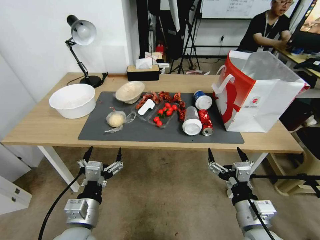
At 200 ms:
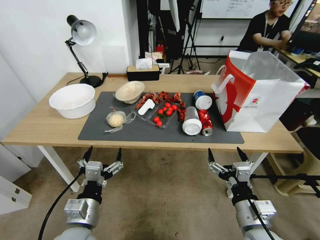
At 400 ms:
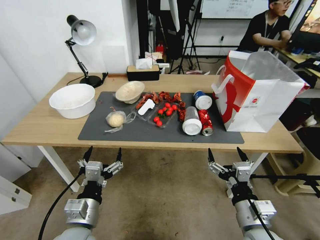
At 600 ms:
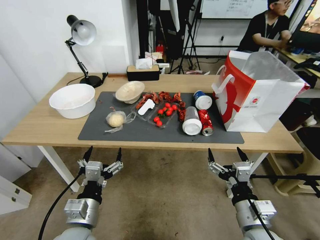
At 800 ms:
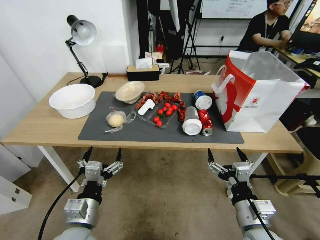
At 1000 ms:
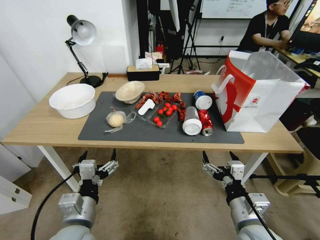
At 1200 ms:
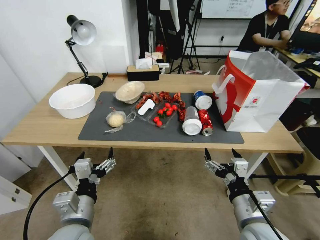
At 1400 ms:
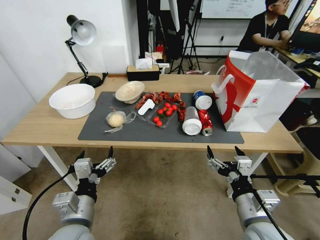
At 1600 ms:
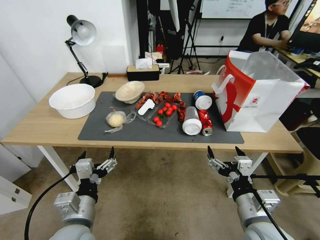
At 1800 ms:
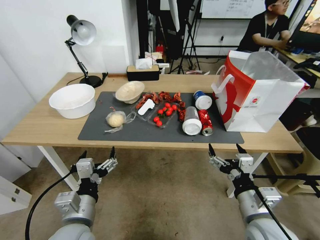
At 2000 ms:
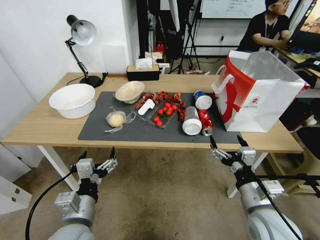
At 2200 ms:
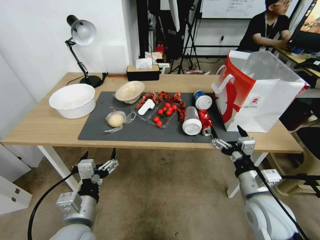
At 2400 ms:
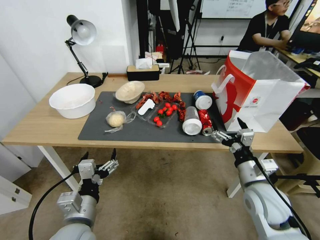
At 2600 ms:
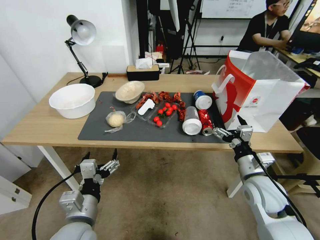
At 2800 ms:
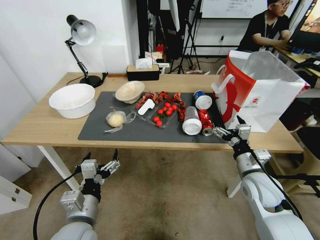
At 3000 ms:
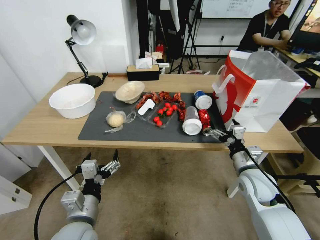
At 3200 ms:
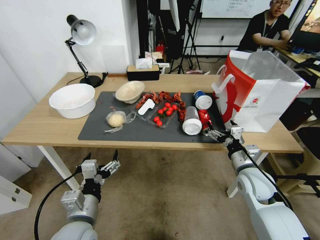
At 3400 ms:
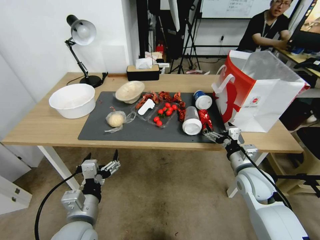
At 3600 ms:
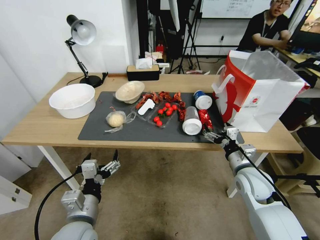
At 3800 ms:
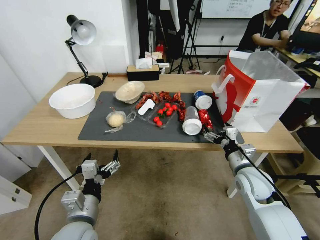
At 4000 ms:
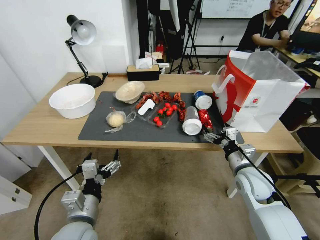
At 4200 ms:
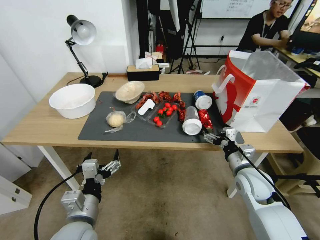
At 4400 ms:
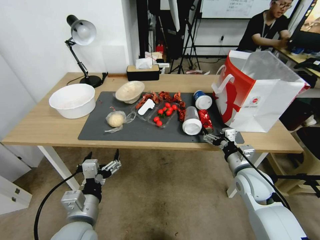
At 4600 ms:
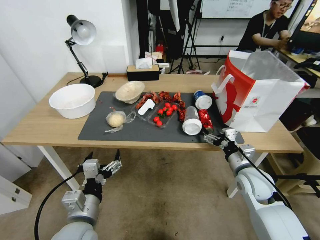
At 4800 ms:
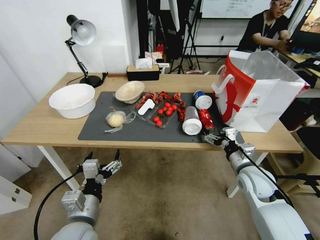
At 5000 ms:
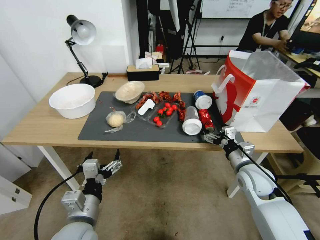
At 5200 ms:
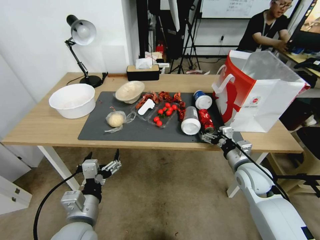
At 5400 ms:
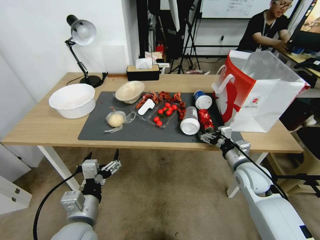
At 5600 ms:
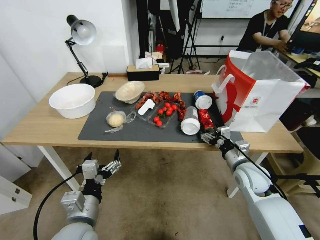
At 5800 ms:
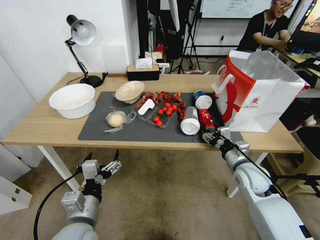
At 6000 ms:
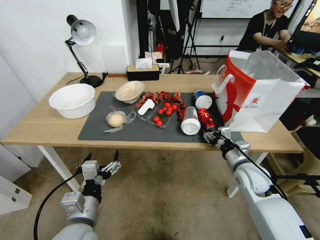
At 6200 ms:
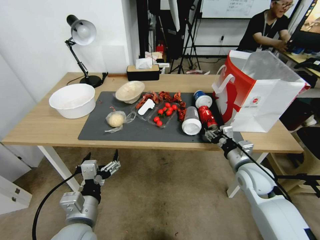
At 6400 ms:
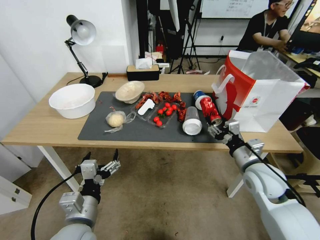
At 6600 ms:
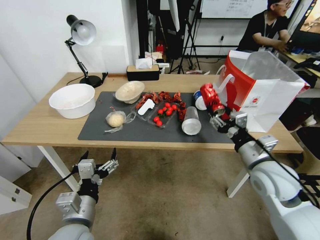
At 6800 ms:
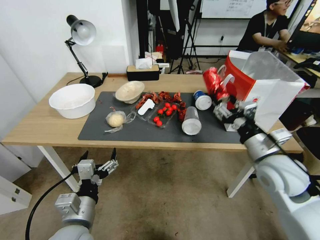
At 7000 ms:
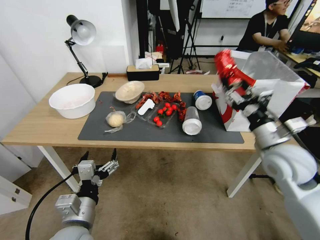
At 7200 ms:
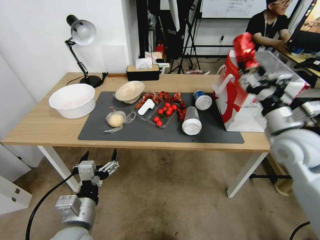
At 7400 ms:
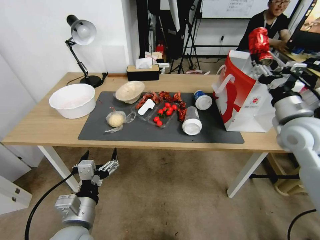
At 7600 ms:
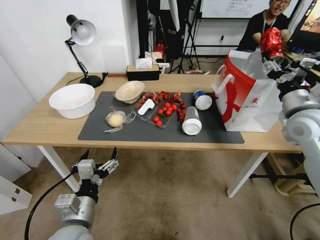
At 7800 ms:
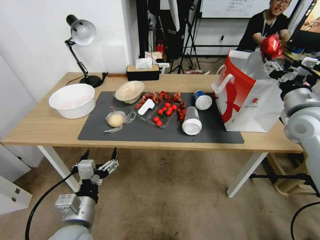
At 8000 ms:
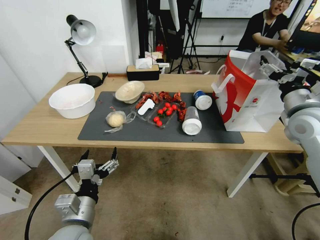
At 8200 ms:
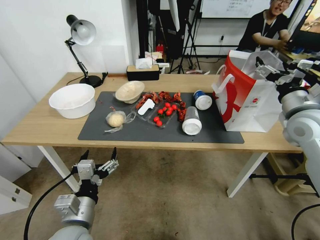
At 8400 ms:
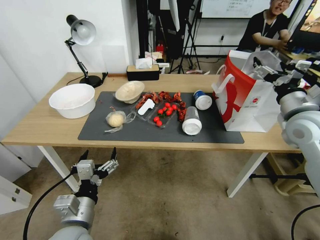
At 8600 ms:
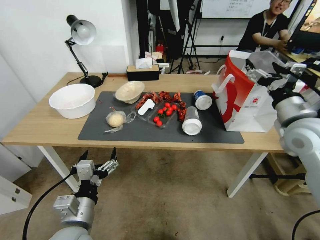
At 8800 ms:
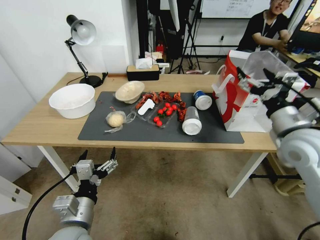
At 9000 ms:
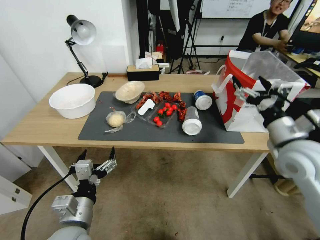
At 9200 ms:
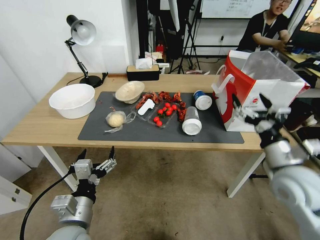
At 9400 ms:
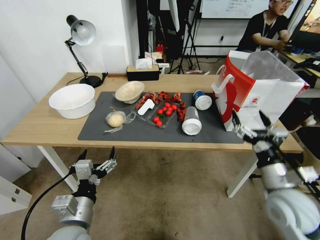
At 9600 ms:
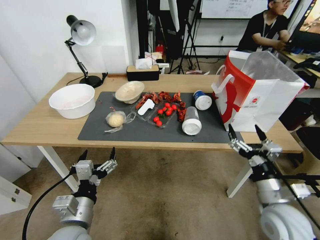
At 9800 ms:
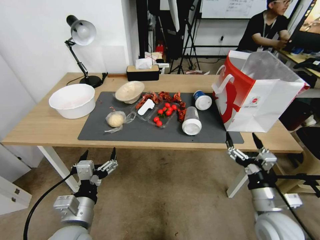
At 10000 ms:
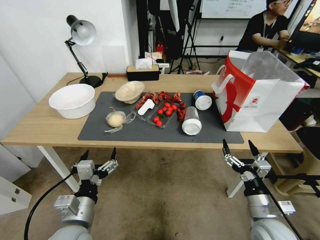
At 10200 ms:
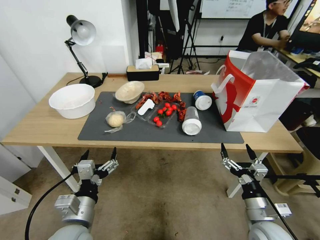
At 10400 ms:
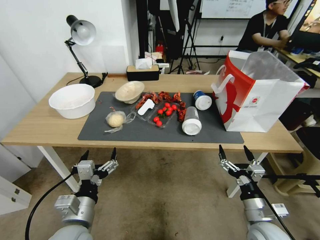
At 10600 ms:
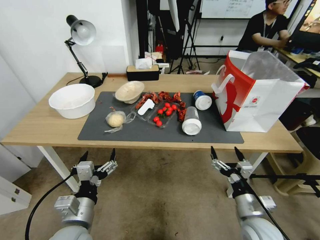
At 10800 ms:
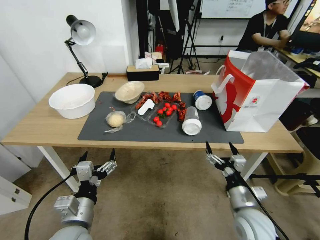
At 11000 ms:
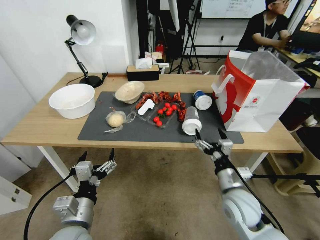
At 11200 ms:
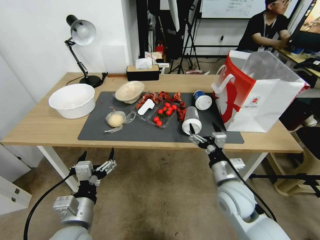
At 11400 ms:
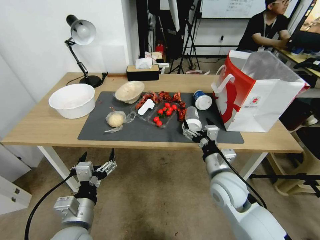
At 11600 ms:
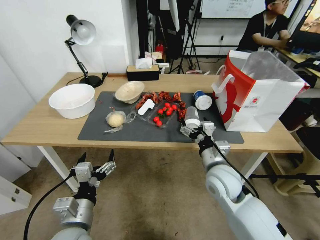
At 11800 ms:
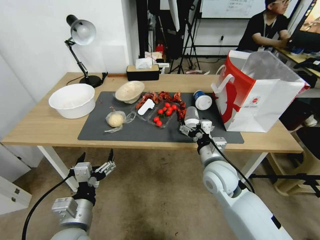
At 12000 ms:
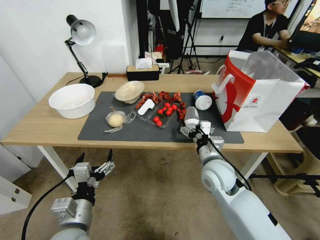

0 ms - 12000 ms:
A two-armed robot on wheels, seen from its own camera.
1600 ms - 3000 ms: The right gripper goes some 15 cm forward and to the right.
3000 ms - 4400 ms: The grippers make only small movements.
4400 ms - 6000 ms: The right gripper closes.
6000 ms - 7600 ms: The right gripper heads upward and to the right, covering roughly 20 cm.
7600 ms - 9000 ms: The right gripper shifts about 10 cm backward, and opens its fingers.
9000 ms - 10400 ms: The right gripper moves downward and backward, some 20 cm.
10400 ms - 12000 ms: The right gripper moves forward, to the left and upward, roughly 20 cm.

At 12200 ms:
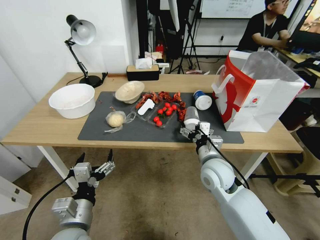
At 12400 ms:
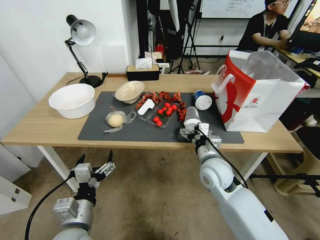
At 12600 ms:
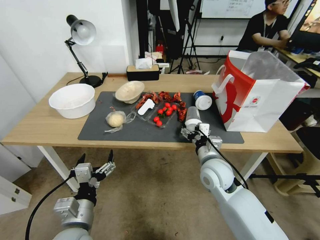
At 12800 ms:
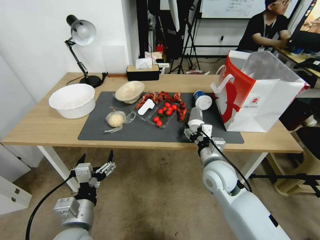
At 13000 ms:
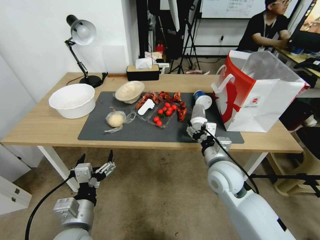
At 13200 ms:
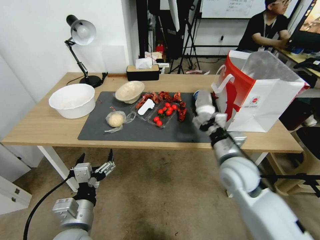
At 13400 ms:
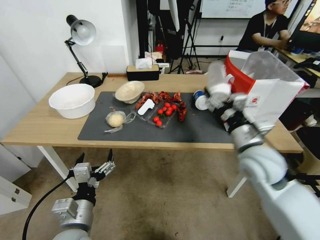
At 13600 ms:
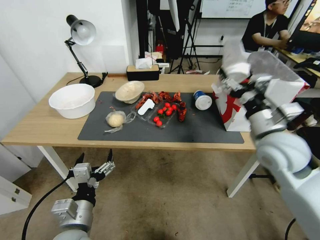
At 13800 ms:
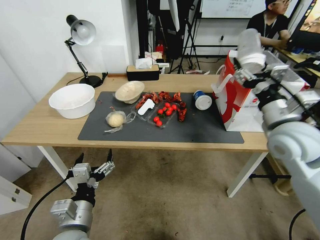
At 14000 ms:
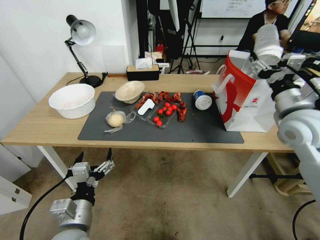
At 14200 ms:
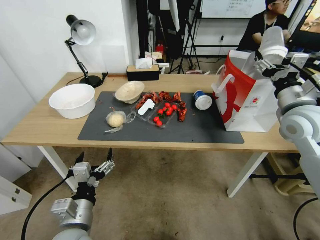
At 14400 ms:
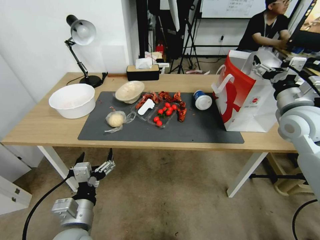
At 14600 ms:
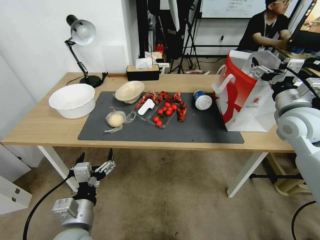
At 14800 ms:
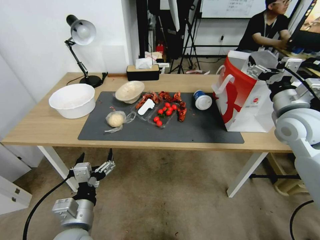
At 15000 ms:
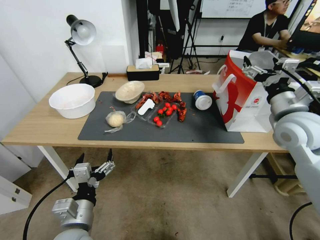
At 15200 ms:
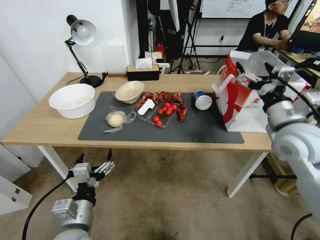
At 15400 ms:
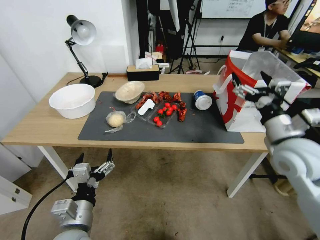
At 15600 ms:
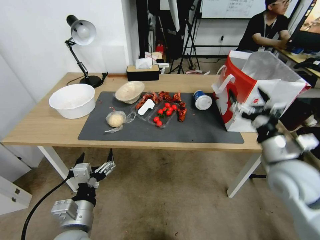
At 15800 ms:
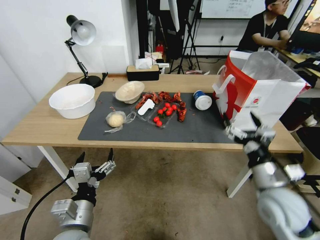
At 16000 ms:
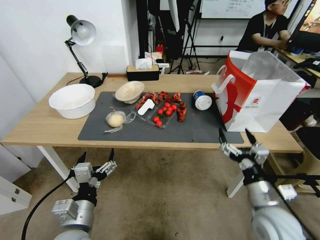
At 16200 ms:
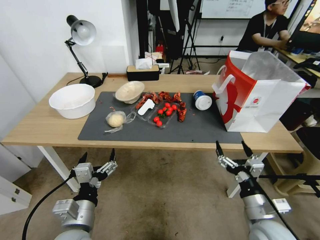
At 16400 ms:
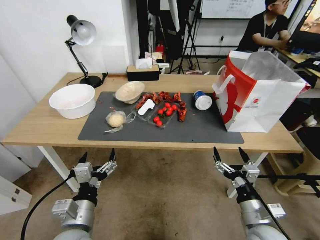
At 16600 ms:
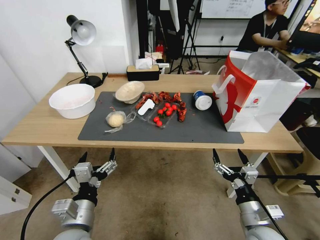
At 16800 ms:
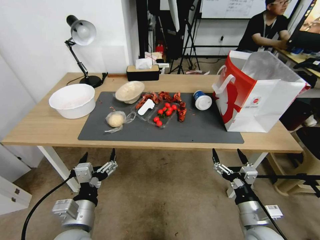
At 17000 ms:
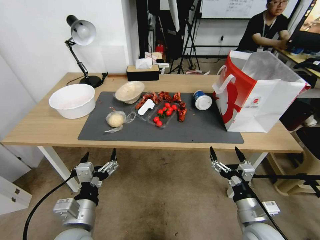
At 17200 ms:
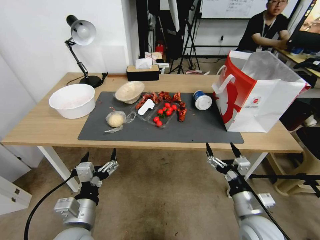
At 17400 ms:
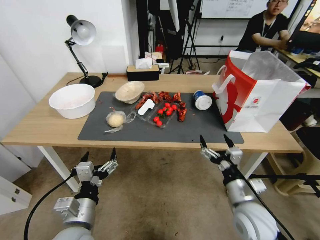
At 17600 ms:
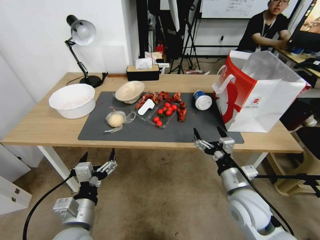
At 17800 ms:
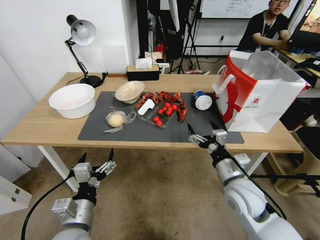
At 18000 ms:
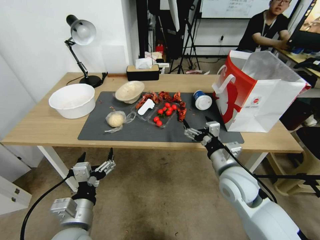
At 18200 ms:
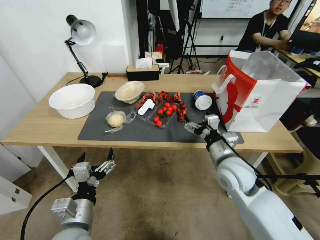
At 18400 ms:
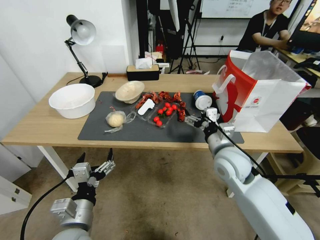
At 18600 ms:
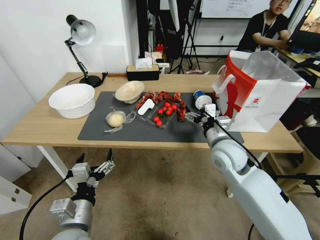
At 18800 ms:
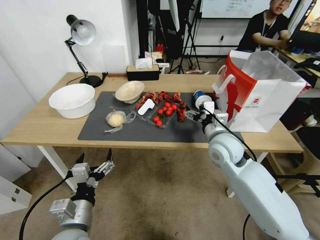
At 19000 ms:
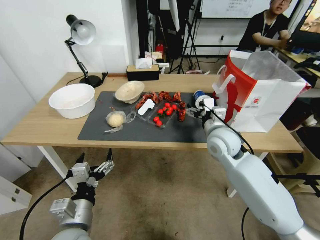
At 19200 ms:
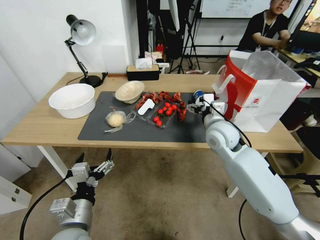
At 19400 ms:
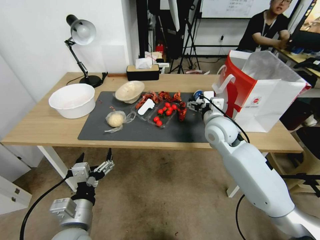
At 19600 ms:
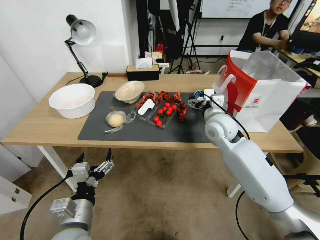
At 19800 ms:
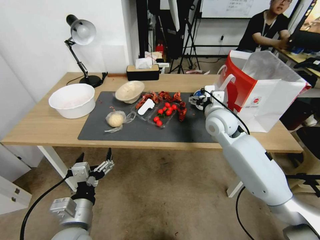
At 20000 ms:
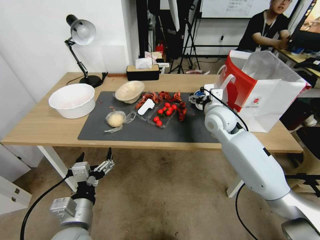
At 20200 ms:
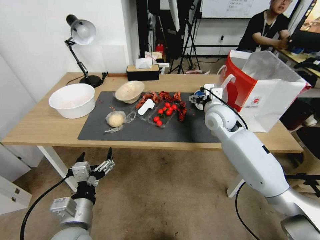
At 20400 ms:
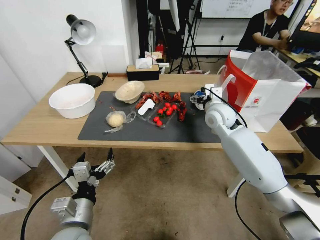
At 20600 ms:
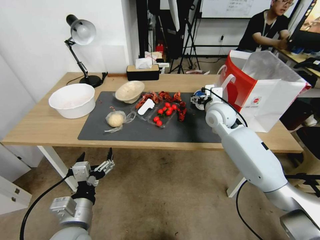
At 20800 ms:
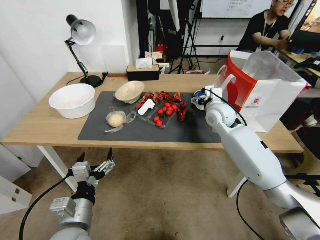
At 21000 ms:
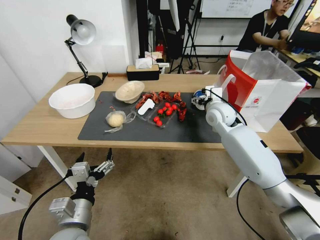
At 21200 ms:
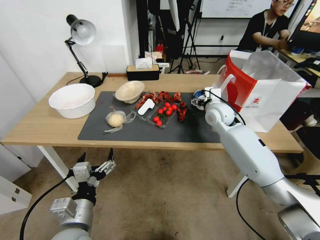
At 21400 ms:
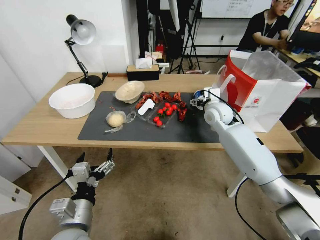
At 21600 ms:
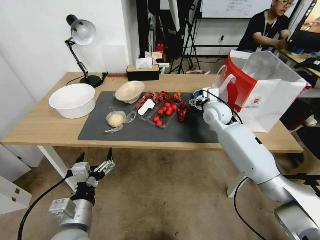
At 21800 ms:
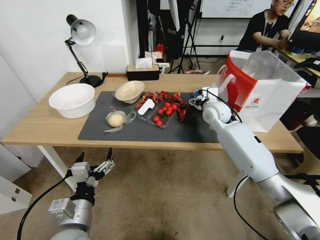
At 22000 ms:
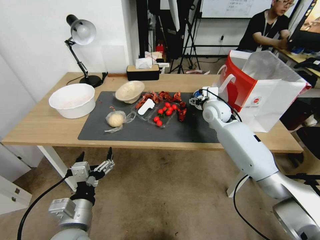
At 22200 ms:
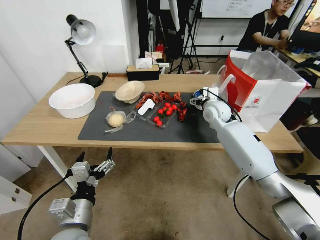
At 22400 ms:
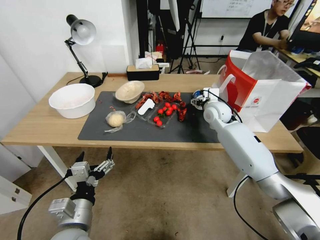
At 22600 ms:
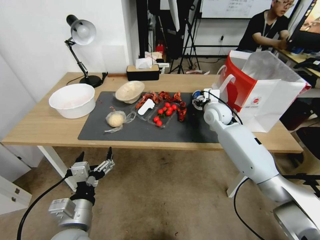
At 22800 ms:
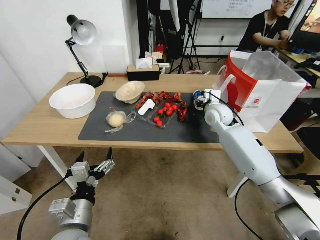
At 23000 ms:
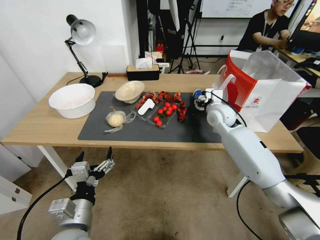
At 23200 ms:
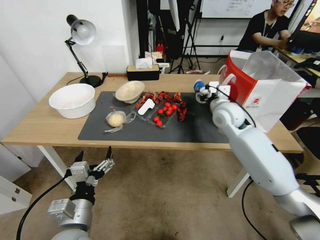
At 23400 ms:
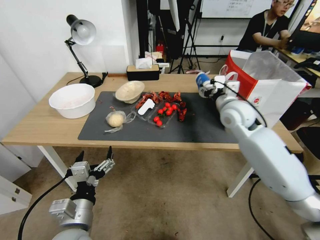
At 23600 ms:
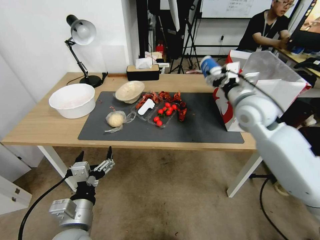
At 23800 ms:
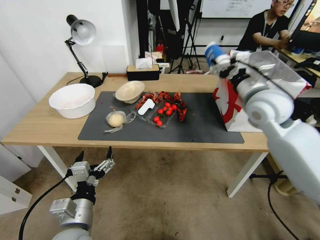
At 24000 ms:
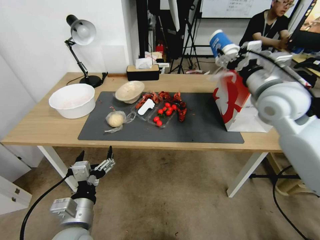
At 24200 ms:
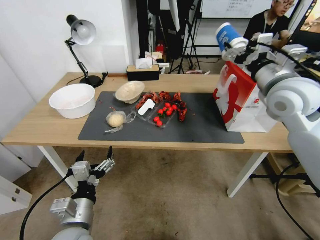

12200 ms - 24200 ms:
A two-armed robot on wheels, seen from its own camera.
12200 ms - 13800 ms: The right gripper is displaced upward and to the right by approximately 20 cm, and closes its fingers.
13800 ms - 15200 ms: The right gripper opens up.
15200 ms - 16600 ms: The right gripper travels downward and backward by approximately 30 cm.
16600 ms - 18200 ms: The right gripper heads forward, upward and to the left, covering approximately 20 cm.
18200 ms - 19800 ms: The right gripper goes roughly 15 cm forward and upward.
19800 ms - 21200 ms: The right gripper shifts some 5 cm forward.
21200 ms - 22600 ms: The right gripper closes up.
22600 ms - 24200 ms: The right gripper goes about 25 cm upward, backward and to the right.
